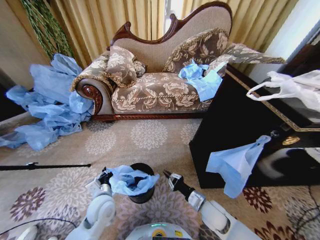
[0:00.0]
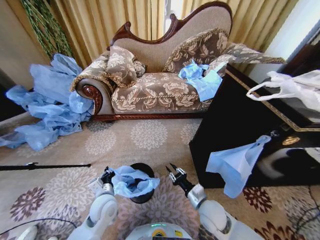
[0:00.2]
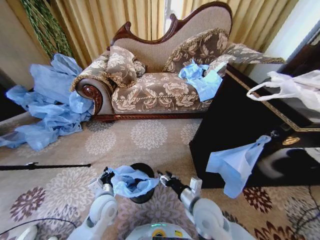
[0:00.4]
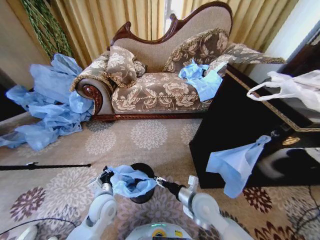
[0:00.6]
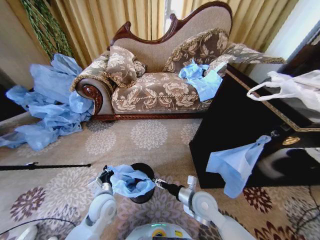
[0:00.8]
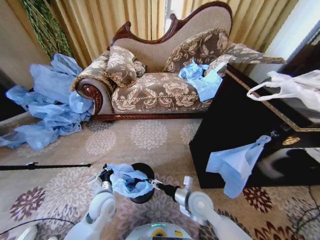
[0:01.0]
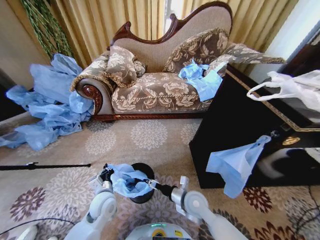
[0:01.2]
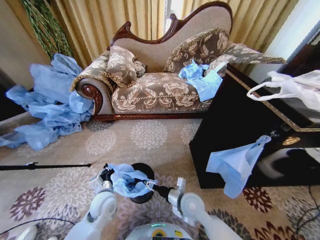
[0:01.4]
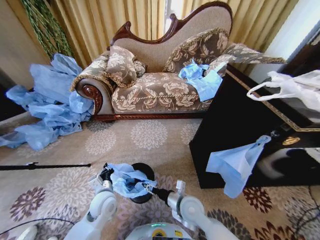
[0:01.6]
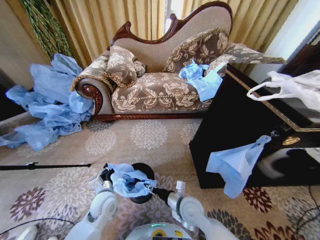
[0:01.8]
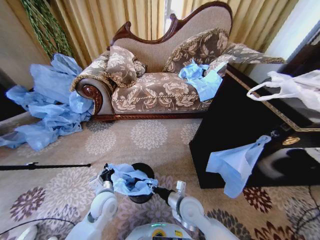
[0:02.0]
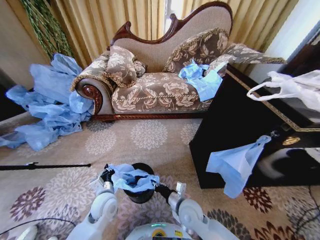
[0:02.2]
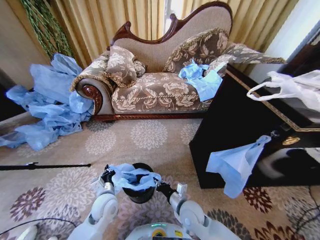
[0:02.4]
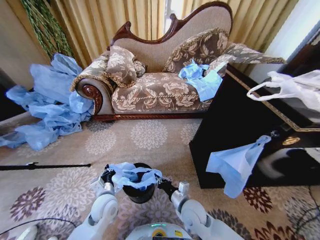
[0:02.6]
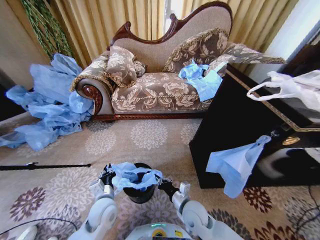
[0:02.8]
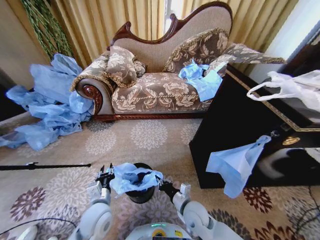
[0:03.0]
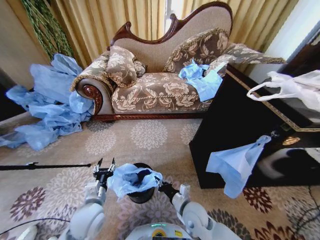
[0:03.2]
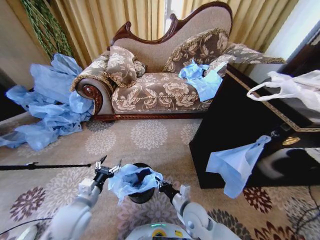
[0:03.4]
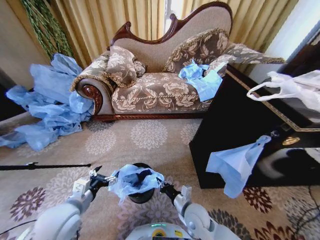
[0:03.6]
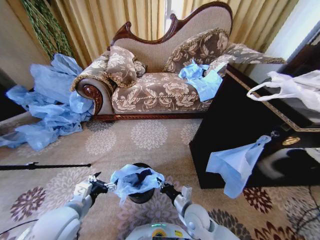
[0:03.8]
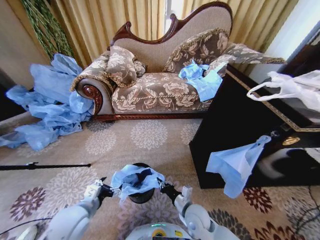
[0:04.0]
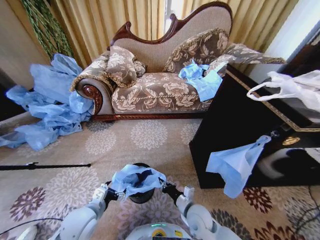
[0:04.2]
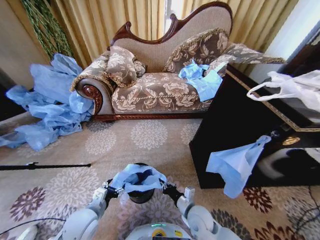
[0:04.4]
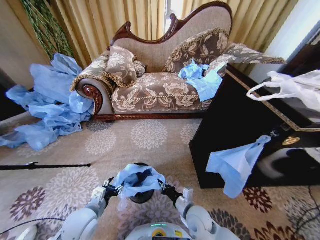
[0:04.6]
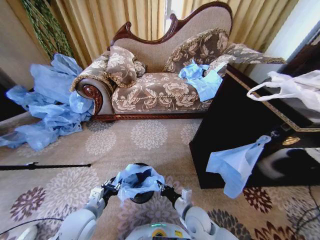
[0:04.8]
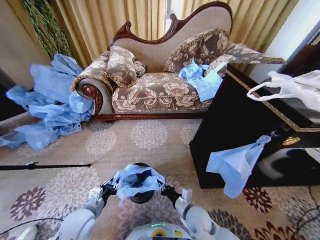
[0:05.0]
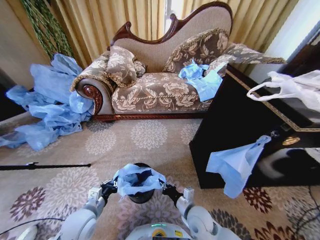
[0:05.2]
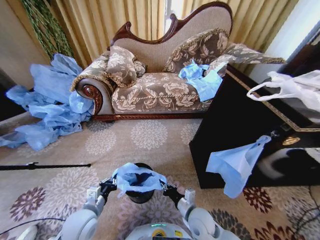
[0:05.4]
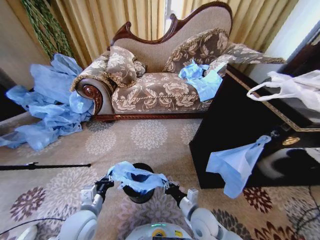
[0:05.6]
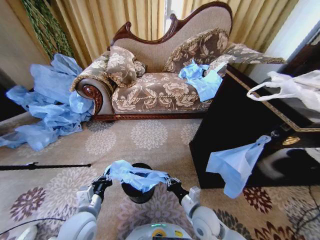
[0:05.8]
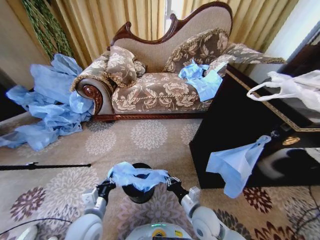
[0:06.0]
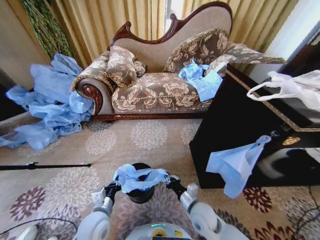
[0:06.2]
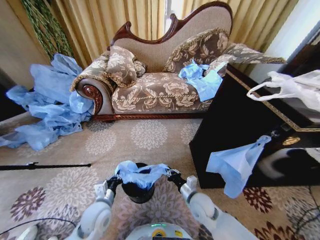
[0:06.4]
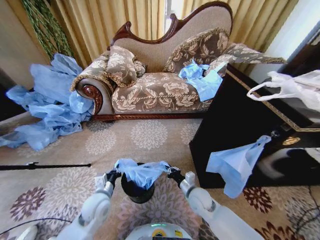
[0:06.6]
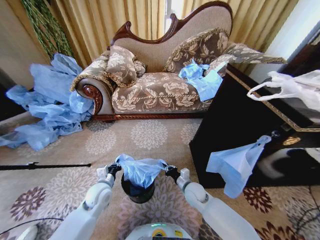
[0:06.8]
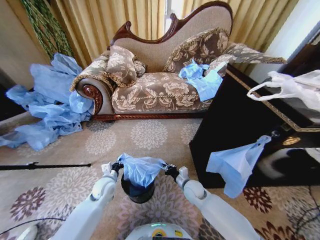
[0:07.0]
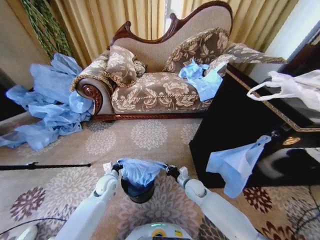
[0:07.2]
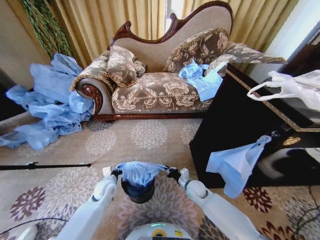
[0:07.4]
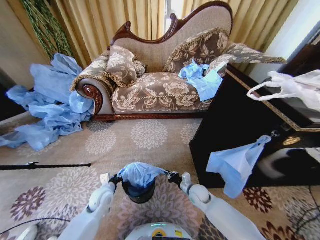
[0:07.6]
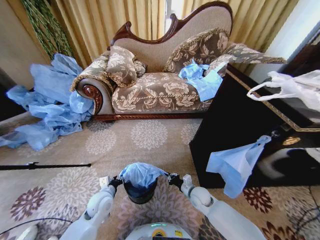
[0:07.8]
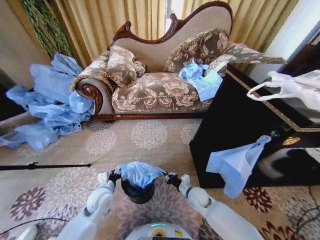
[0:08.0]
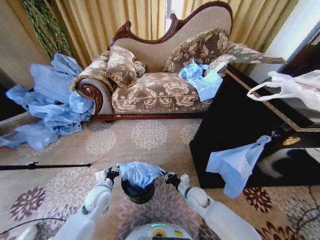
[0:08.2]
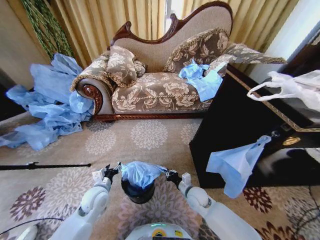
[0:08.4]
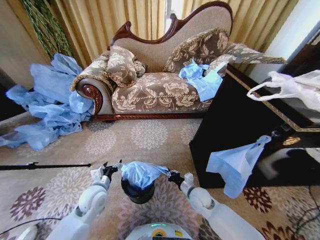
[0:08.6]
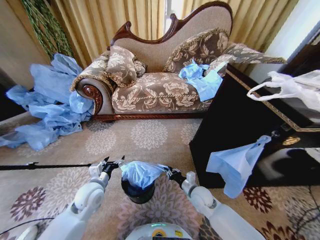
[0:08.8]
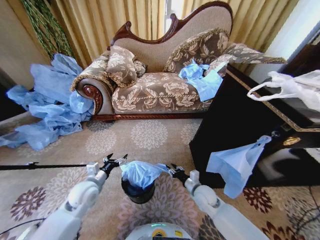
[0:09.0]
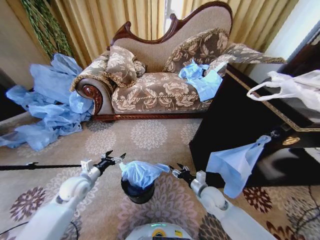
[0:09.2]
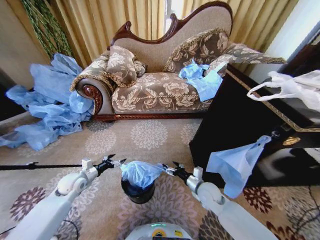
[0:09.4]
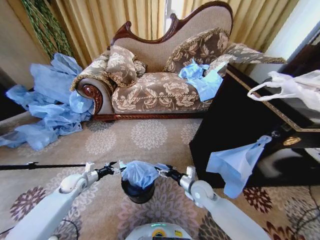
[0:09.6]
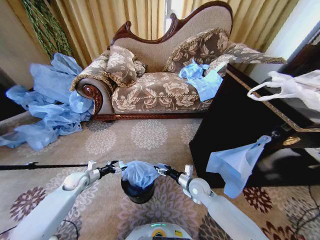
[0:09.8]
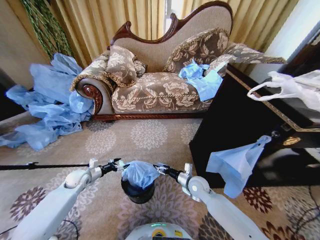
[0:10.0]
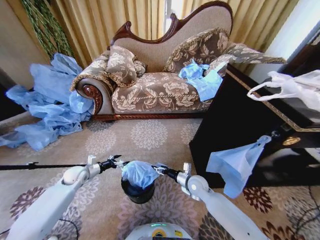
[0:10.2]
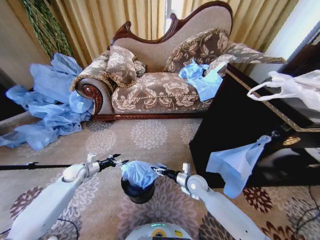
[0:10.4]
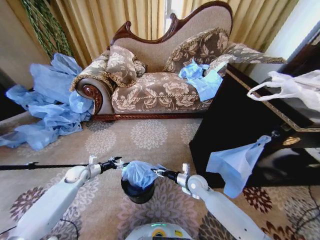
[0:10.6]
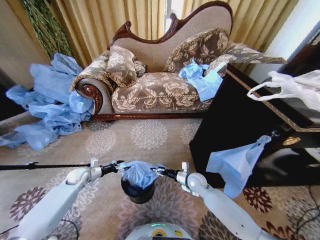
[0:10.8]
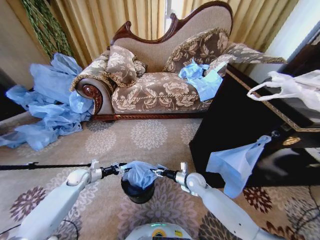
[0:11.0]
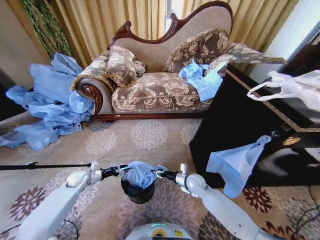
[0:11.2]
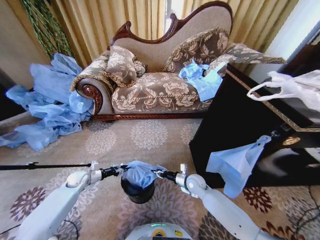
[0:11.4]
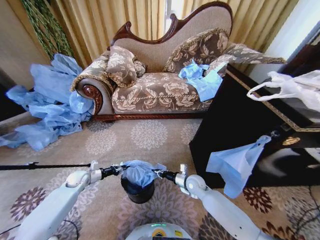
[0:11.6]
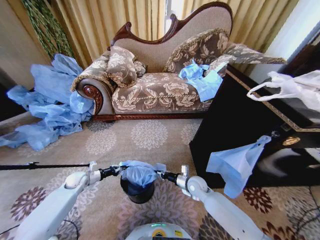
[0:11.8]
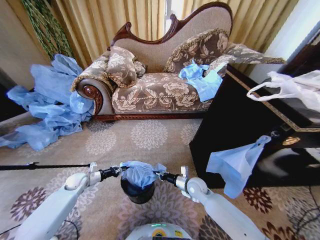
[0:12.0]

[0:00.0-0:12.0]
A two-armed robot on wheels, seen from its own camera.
Task of the whole recording: Place a garbage bag over the trash bin.
0:00.0 to 0:01.6: The right gripper shifts about 10 cm to the left, and opens.
0:01.6 to 0:03.0: The left gripper goes approximately 5 cm backward, and opens. Meanwhile the right gripper closes.
0:03.0 to 0:04.4: The left gripper travels upward and back again, approximately 10 cm each way, and opens.
0:04.4 to 0:06.0: The left gripper closes up.
0:06.0 to 0:07.6: The grippers both shift forward and downward by approximately 15 cm.
0:07.6 to 0:09.0: The left gripper heads upward and to the left, covering some 10 cm, and opens. Meanwhile the right gripper travels upward by approximately 5 cm, and opens its fingers.
0:09.0 to 0:10.4: The left gripper goes some 15 cm to the left, forward and downward; the right gripper goes roughly 5 cm forward, and opens up.
0:10.4 to 0:12.0: The right gripper closes its fingers; the left gripper changes place by approximately 5 cm, and closes.

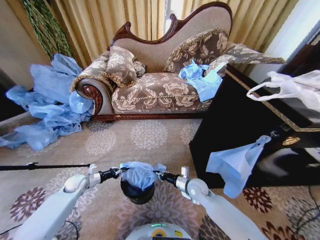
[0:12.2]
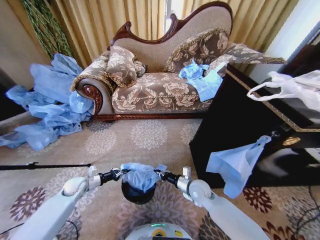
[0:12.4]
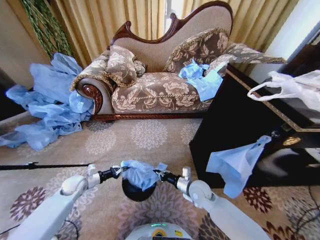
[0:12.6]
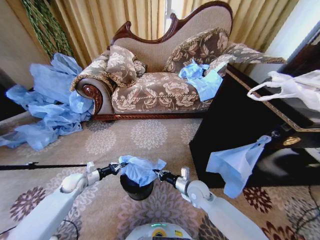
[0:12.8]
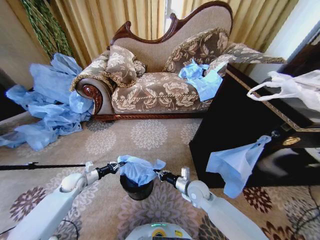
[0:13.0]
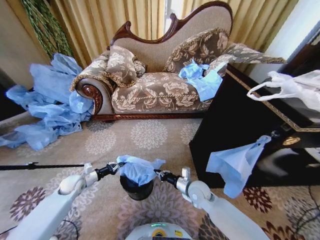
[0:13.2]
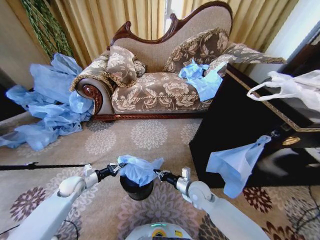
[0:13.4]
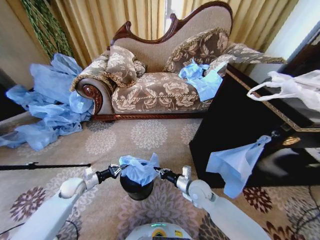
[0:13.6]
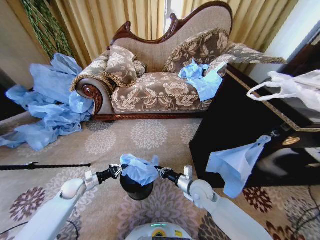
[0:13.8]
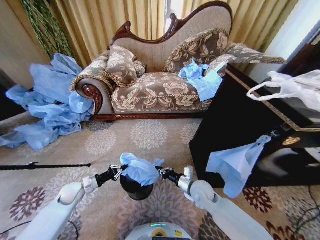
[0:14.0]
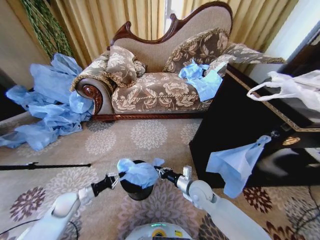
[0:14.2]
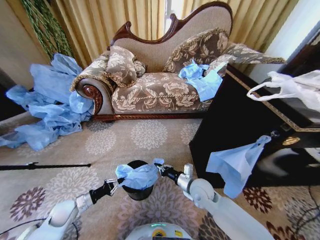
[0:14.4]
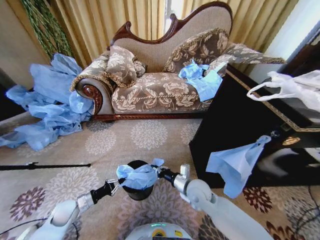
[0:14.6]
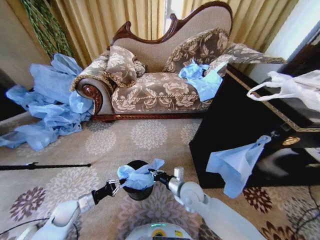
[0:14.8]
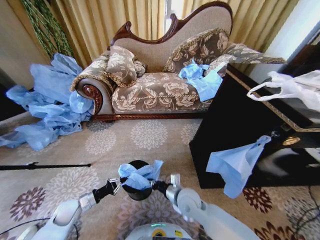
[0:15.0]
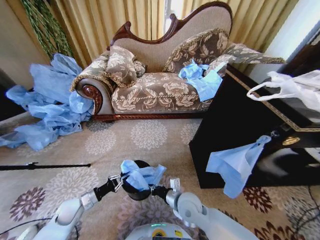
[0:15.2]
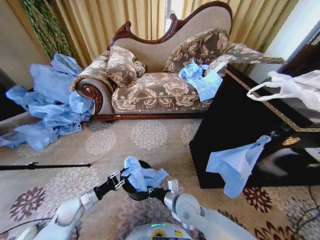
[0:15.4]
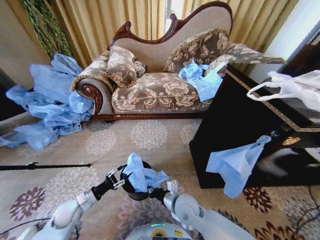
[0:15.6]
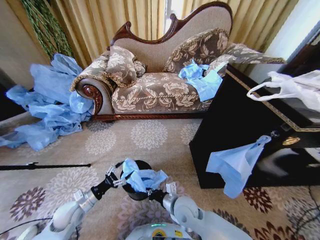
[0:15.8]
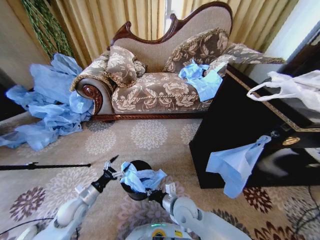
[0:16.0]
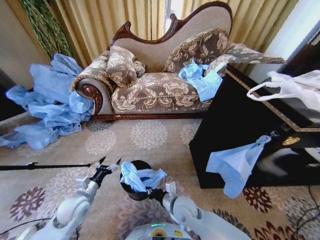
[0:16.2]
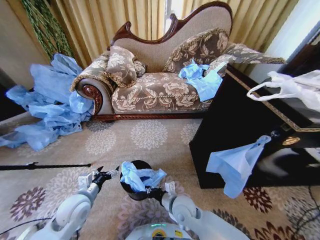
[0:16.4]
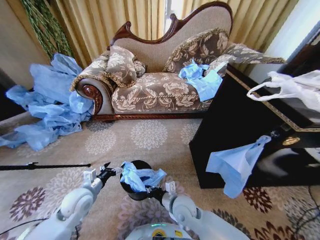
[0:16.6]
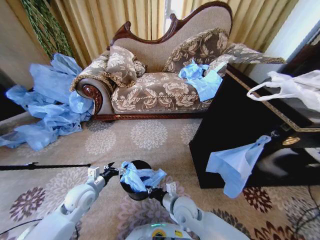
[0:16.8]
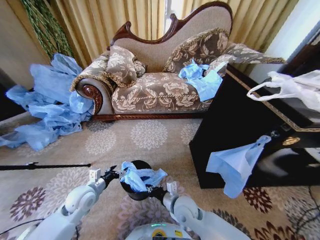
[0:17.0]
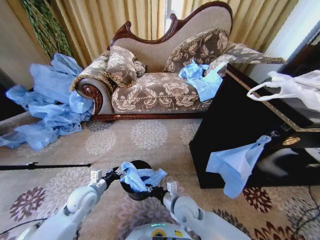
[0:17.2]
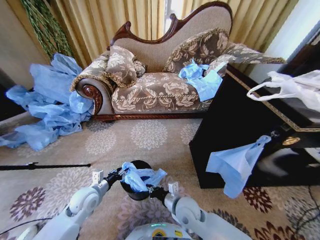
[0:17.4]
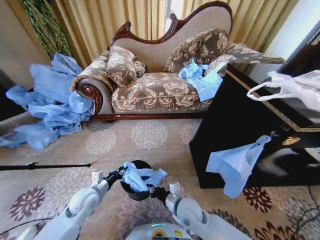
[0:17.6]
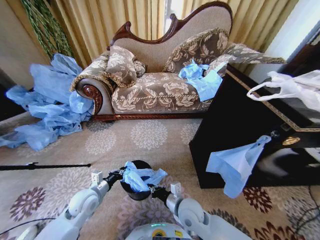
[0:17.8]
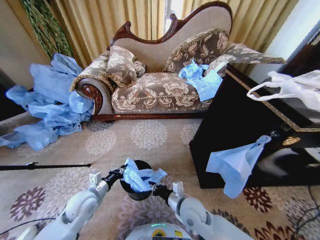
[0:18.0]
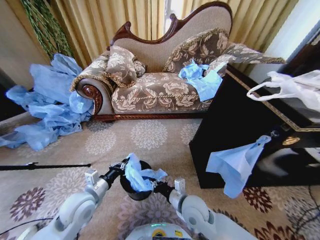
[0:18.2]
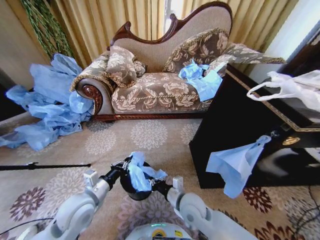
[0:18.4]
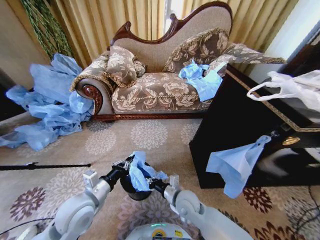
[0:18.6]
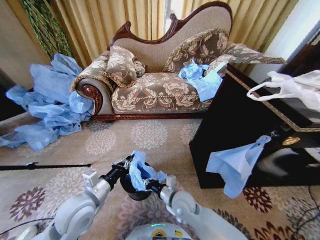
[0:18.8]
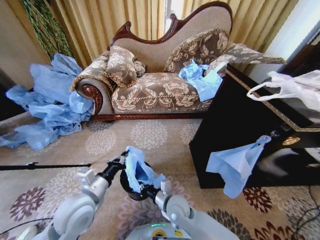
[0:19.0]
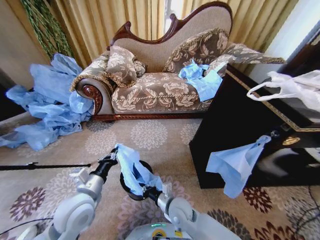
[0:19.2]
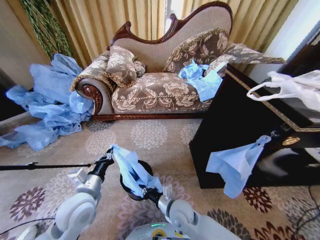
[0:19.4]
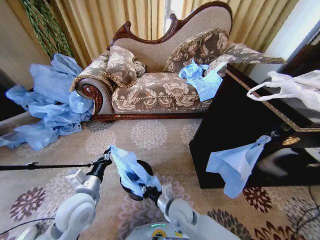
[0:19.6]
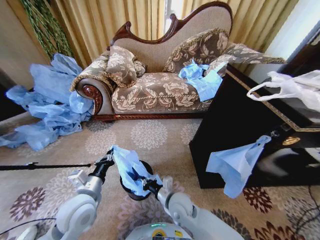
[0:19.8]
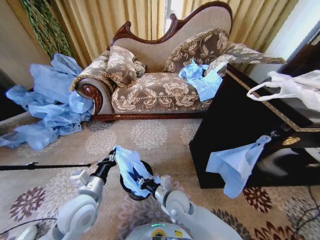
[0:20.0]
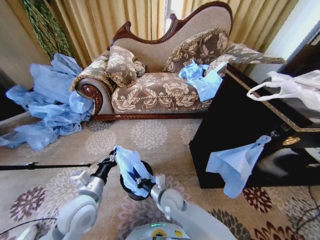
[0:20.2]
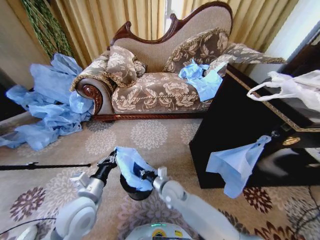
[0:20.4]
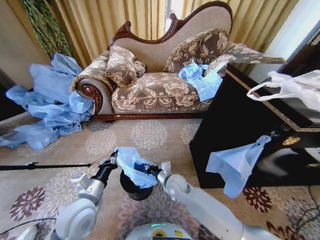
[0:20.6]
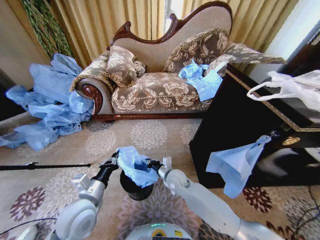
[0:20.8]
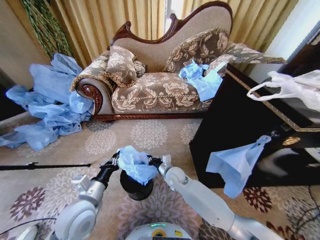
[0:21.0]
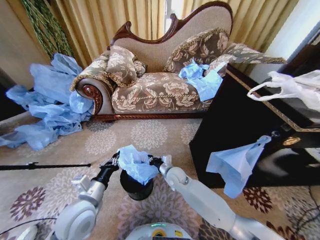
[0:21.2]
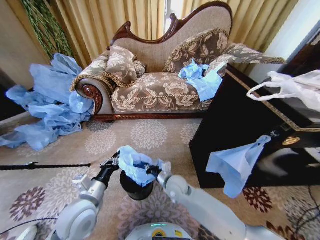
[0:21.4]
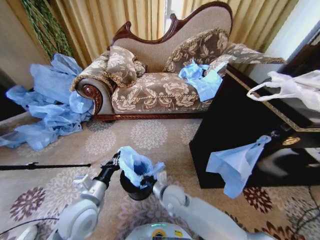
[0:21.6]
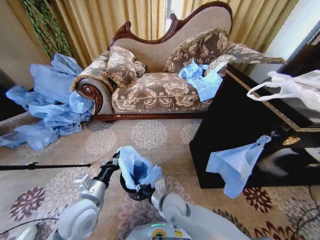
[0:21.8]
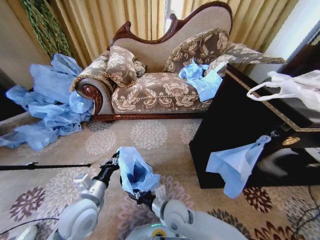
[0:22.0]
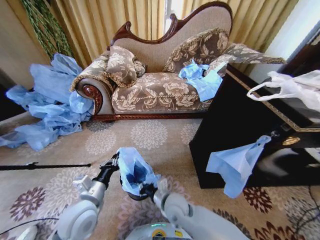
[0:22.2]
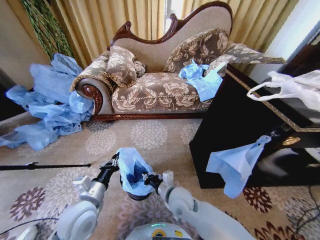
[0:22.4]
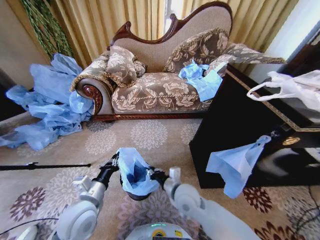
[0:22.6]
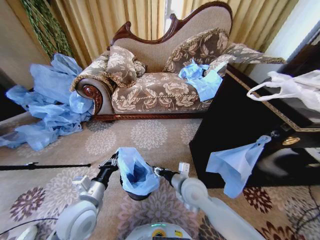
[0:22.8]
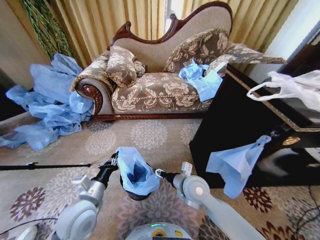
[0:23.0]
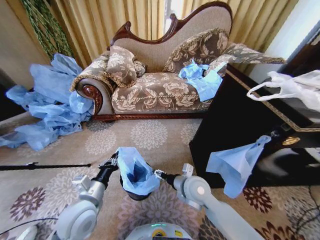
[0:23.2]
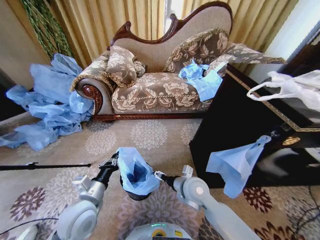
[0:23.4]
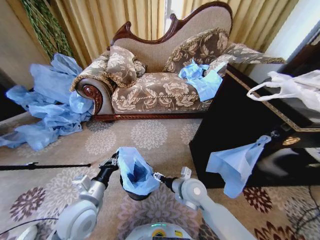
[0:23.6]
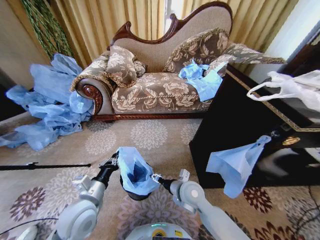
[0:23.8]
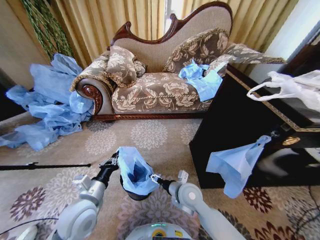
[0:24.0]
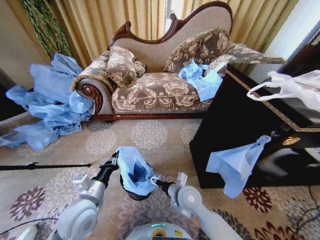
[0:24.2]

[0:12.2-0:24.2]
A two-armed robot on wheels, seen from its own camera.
Task of the whole recording: Place a garbage bag over the trash bin.
0:12.2 to 0:13.8: The right gripper shifts by about 5 cm.
0:13.8 to 0:15.2: The left gripper shifts some 10 cm backward, while the right gripper shifts approximately 10 cm to the left and backward.
0:15.2 to 0:16.6: The left gripper travels upward and to the right by approximately 15 cm, and opens its fingers.
0:16.6 to 0:18.2: The right gripper changes place by roughly 5 cm; the left gripper changes place by about 5 cm, and closes.
0:18.2 to 0:19.8: The right gripper ends up approximately 5 cm from where it was.
0:19.8 to 0:21.2: The right gripper moves forward, roughly 10 cm.
0:21.2 to 0:22.6: The right gripper goes roughly 15 cm backward and upward.
0:22.6 to 0:24.2: The right gripper opens.
